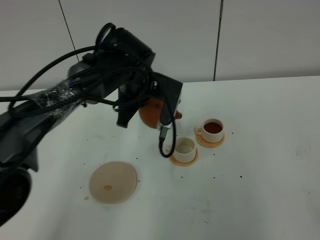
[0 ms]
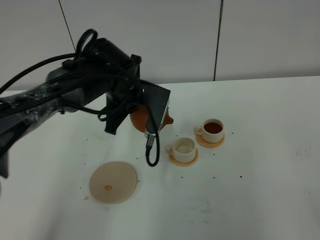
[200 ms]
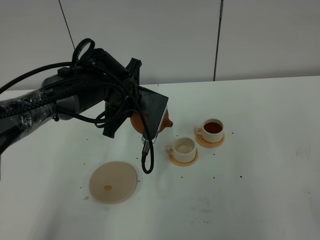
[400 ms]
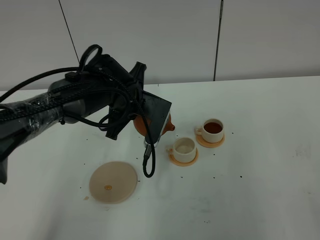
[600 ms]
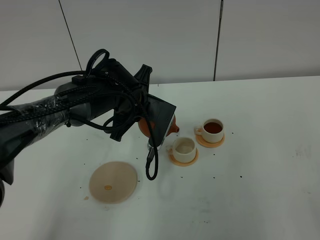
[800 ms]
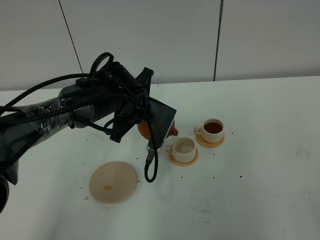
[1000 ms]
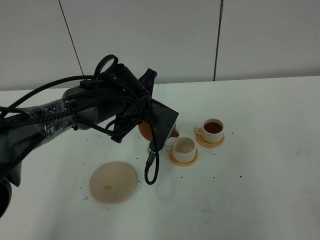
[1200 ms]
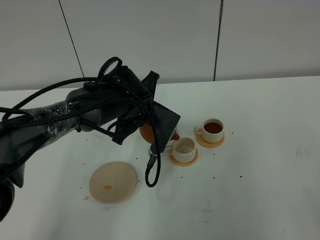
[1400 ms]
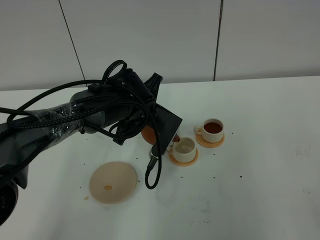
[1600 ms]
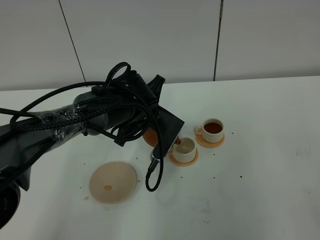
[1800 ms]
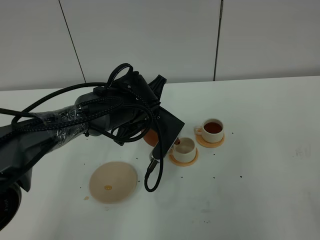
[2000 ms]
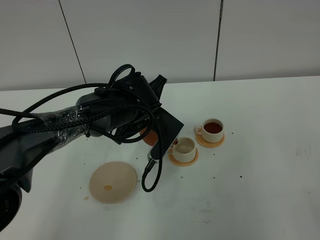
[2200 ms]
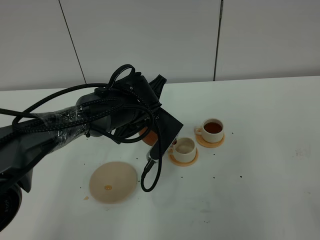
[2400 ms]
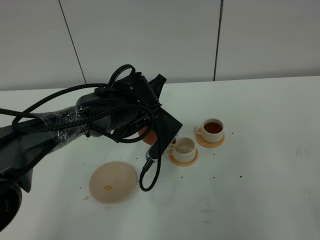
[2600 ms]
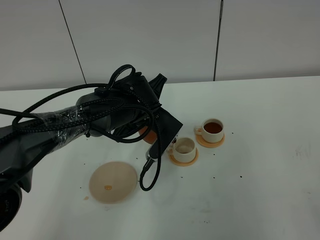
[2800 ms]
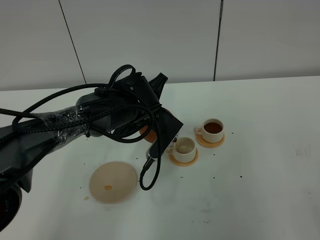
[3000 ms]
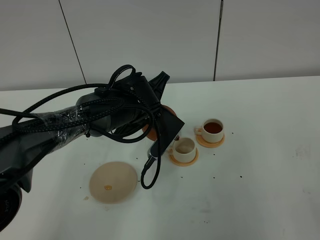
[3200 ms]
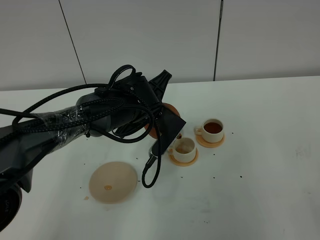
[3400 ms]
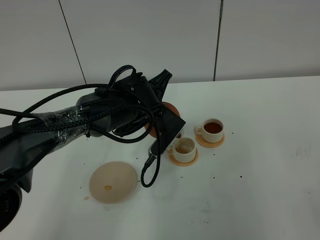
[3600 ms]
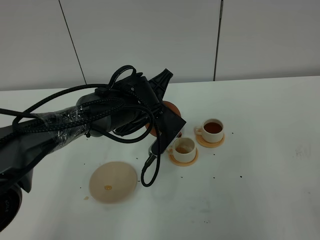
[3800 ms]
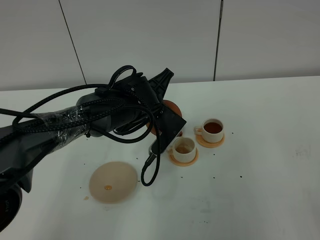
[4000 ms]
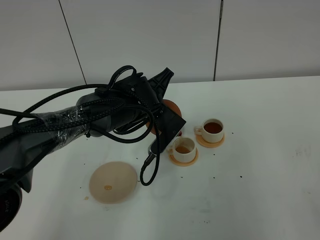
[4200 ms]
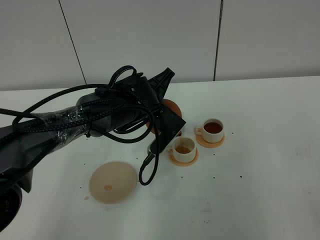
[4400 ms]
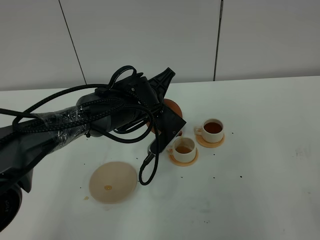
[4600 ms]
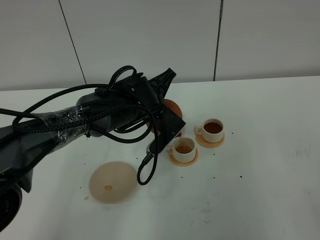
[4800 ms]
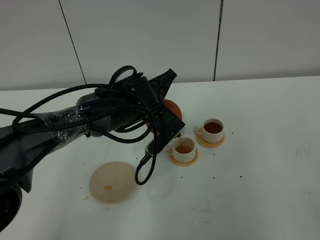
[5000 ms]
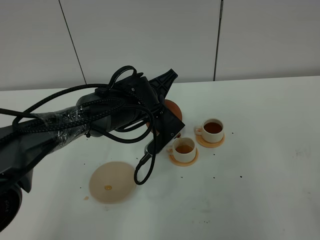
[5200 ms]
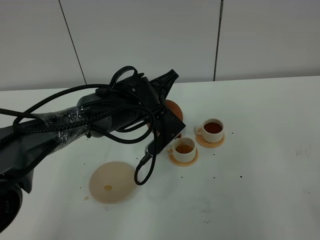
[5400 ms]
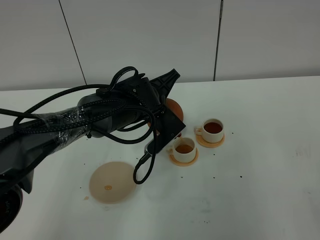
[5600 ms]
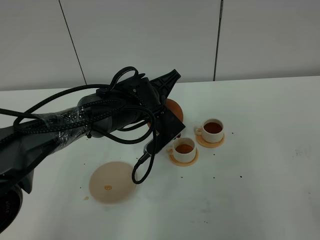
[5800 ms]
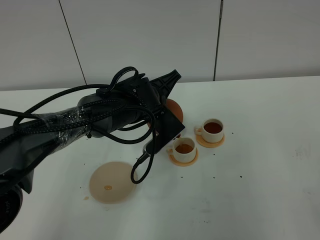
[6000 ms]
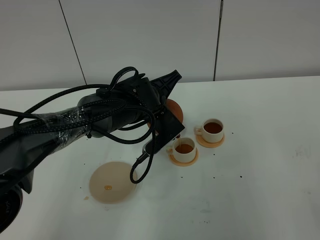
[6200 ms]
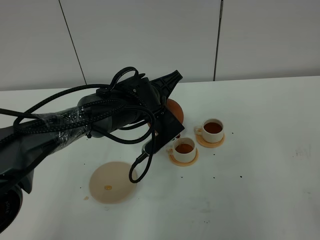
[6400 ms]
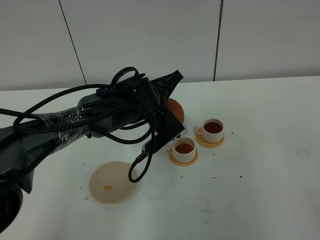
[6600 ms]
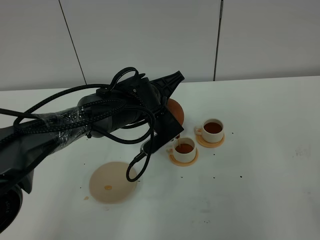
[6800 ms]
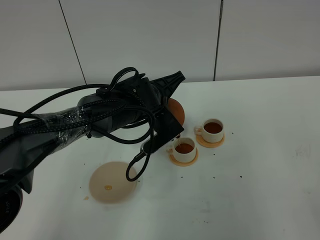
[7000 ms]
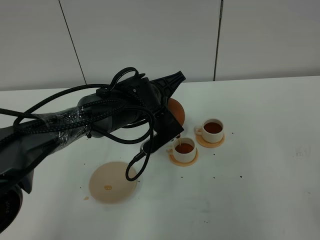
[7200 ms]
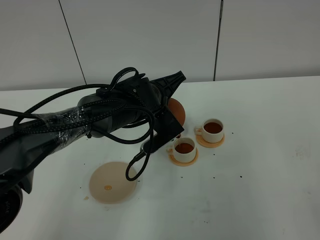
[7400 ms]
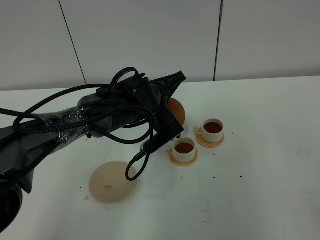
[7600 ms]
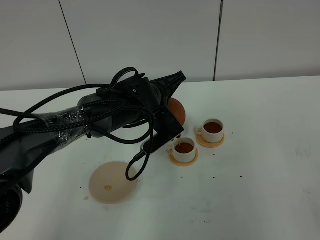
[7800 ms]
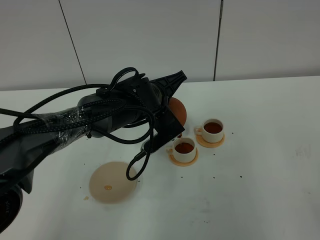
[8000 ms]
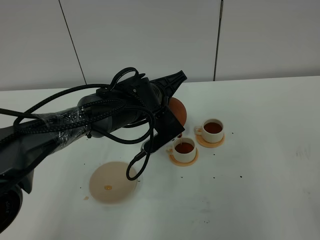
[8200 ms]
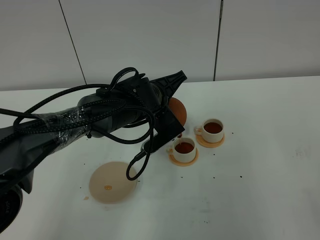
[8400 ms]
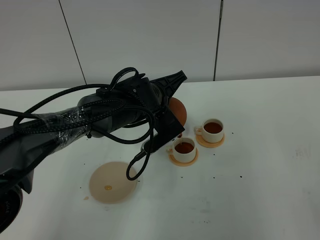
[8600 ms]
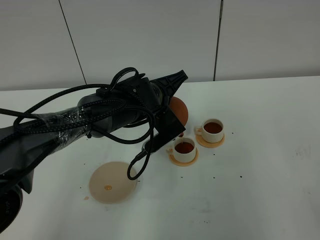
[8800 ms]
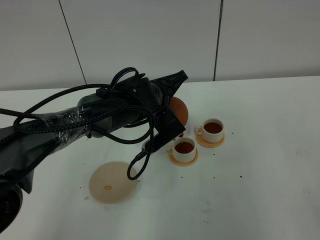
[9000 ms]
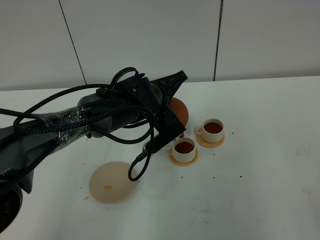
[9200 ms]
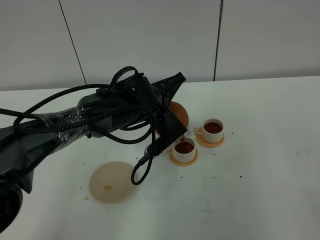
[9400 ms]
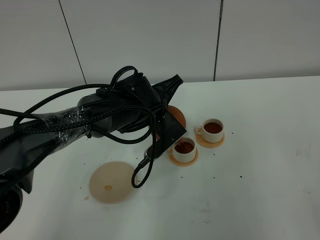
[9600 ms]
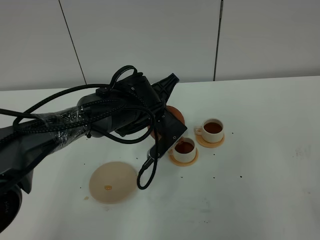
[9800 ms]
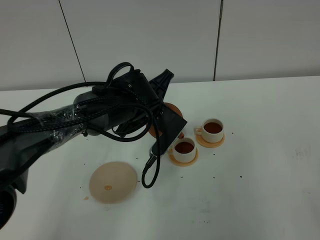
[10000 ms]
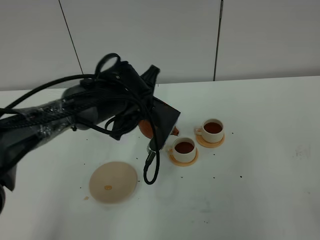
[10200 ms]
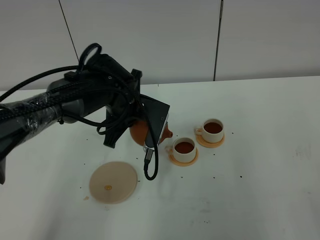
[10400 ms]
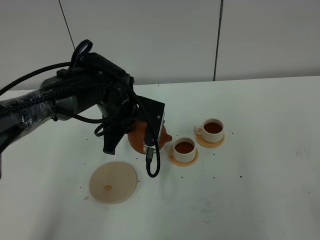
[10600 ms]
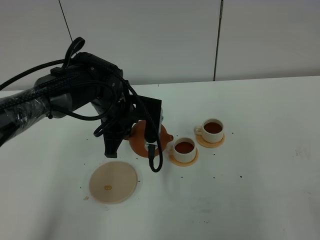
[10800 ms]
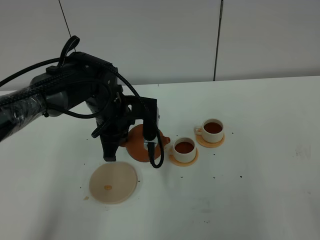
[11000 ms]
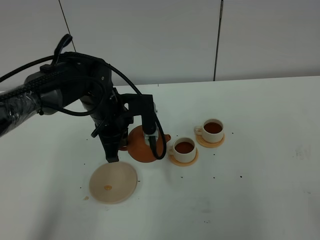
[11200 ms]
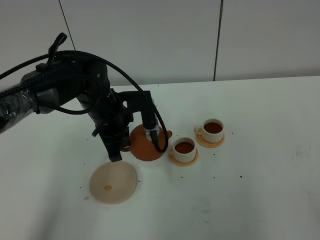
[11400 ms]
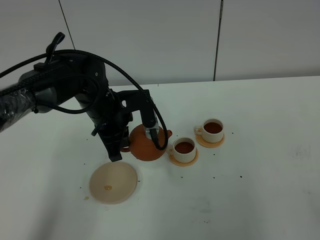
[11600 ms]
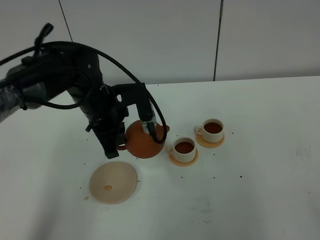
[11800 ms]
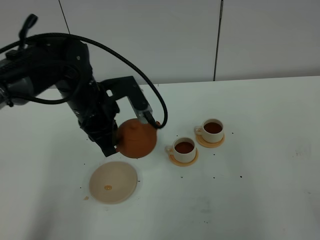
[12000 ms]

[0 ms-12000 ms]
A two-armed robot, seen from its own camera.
Task of the whole recording: grasp the brown teapot and pour the tea into the two white teacups one by one, put the brown teapot back in its original place.
Step, 0 ms to 10000 ms: Pour tea into the teacup with the left gripper.
0 ms to 1600 ms: The left gripper changes place by some 5 cm.
1600 ms to 4400 ms: The grippers make only small movements.
4400 ms to 7600 ms: The grippers stay close to where they were, moving slightly.
7600 ms to 9000 ms: The two grippers keep their place.
9000 ms to 10400 ms: The left gripper travels to the left by roughly 5 cm.
10400 ms to 12000 ms: The left gripper is displaced to the left by some 5 cm.

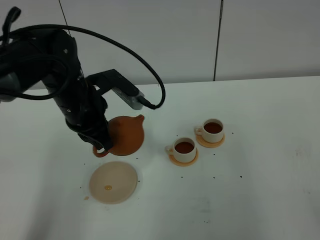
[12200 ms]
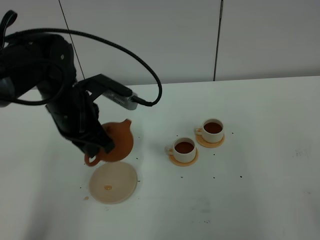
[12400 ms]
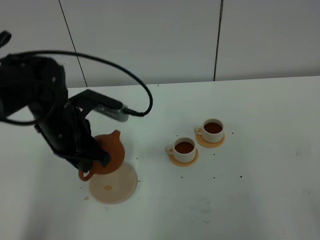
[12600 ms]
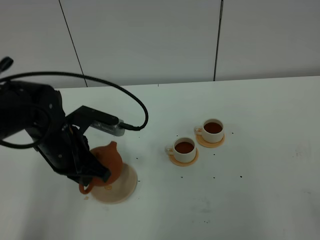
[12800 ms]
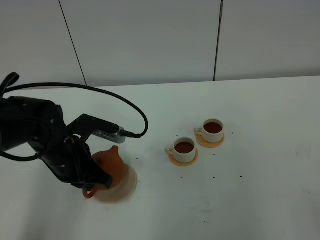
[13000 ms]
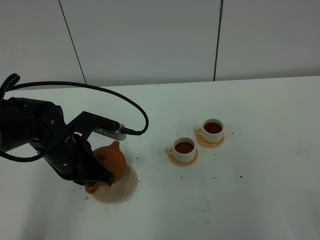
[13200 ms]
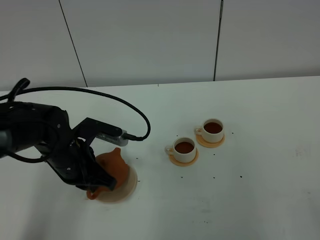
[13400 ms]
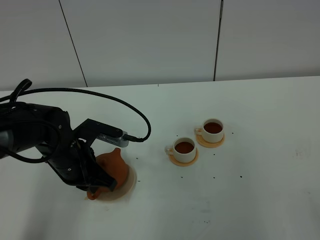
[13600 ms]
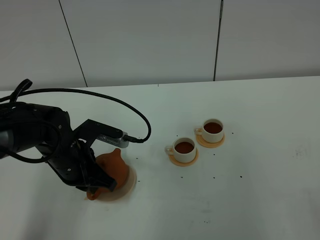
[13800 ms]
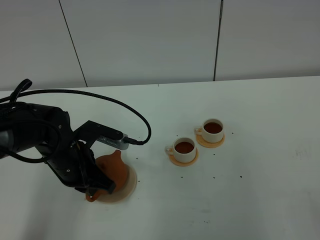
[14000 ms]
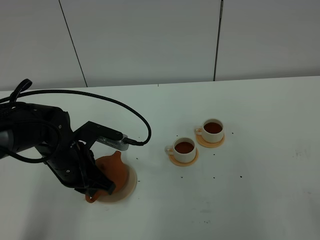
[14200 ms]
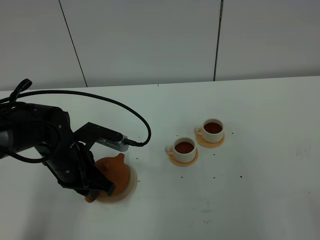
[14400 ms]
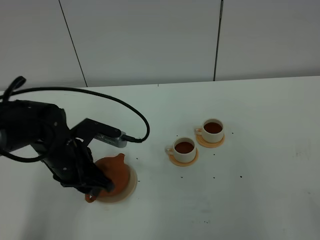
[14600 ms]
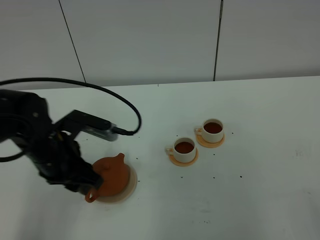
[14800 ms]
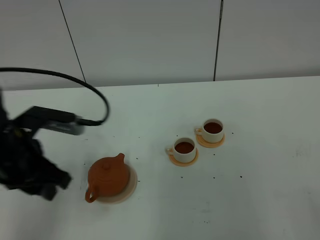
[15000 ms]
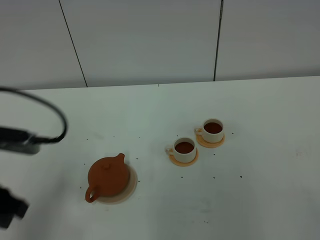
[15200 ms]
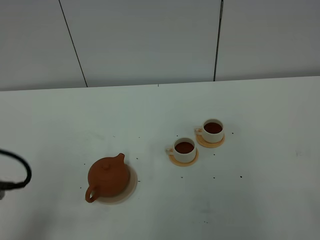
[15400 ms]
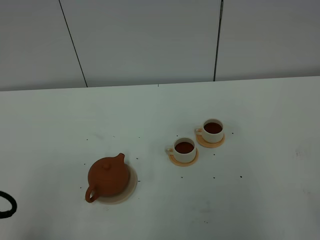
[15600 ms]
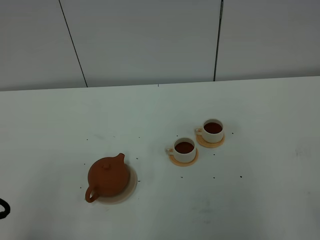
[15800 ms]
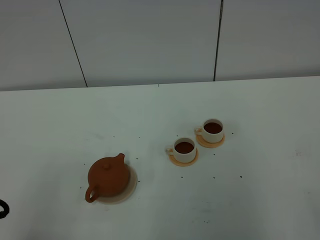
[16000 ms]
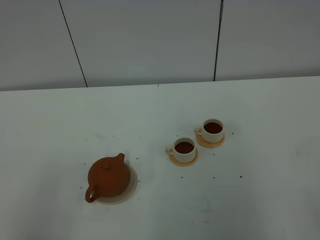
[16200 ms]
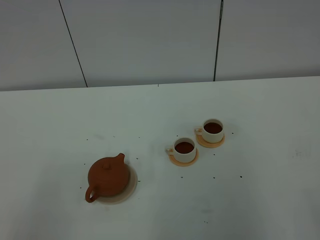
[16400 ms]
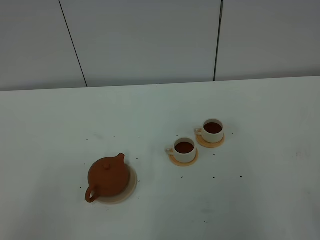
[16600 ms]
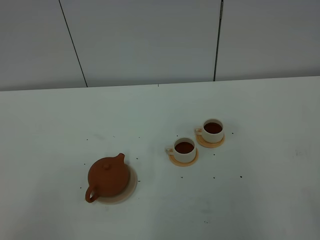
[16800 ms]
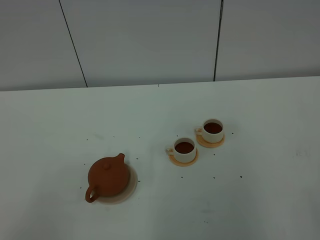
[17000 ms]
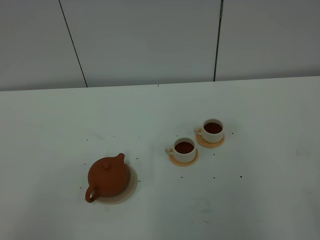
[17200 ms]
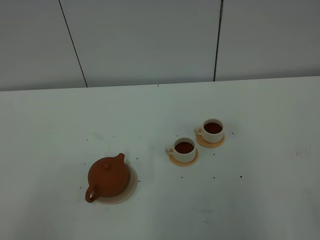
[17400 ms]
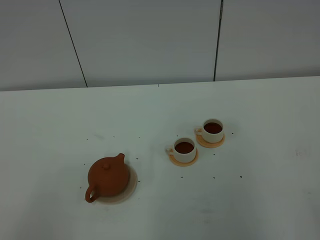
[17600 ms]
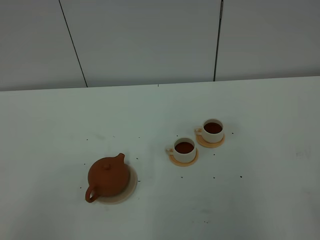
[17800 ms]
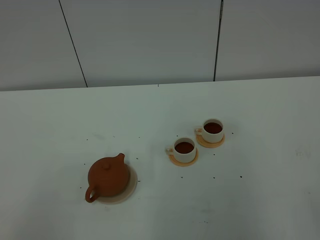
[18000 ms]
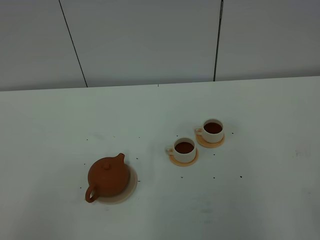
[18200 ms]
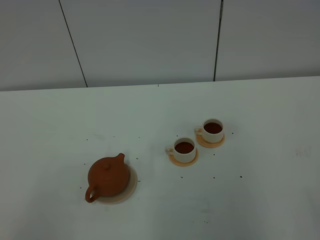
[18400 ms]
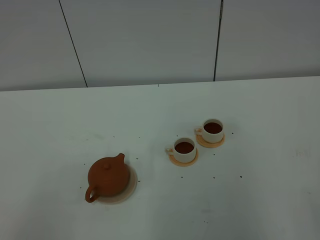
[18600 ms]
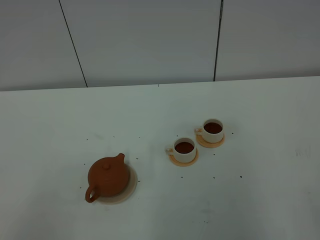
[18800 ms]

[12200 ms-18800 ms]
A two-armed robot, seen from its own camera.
Task of the whole recording: grasp the brown teapot and pour the tea into the two white teacups one by one, put the brown teapot back in its original place.
12200 ms to 13800 ms: The left gripper is displaced downward and backward by approximately 10 cm.
13800 ms to 15400 ms: The left gripper travels backward, to the left and upward by approximately 25 cm, and opens its fingers.
15400 ms to 17200 ms: The left gripper is displaced backward by some 15 cm.
17200 ms to 18800 ms: Both grippers stay about where they are.

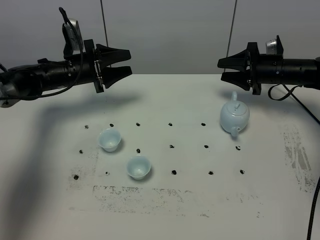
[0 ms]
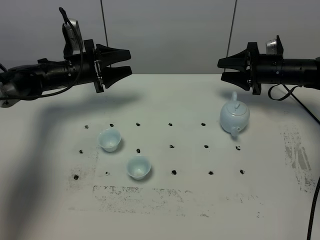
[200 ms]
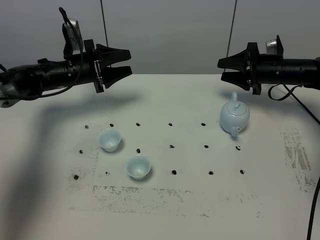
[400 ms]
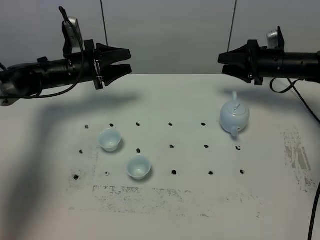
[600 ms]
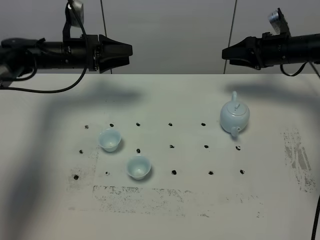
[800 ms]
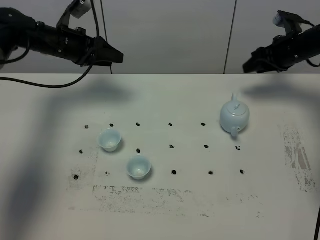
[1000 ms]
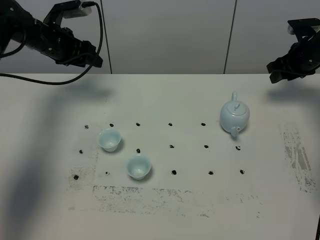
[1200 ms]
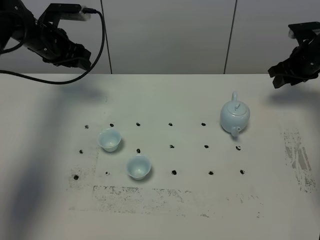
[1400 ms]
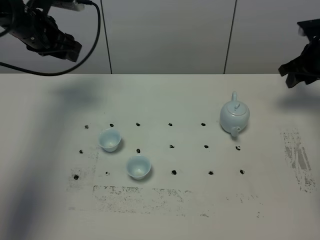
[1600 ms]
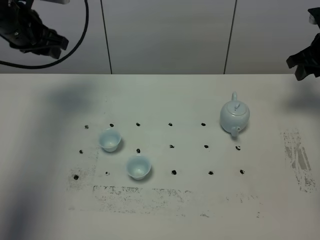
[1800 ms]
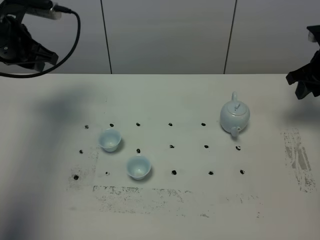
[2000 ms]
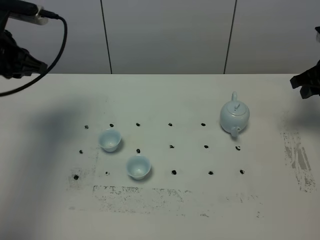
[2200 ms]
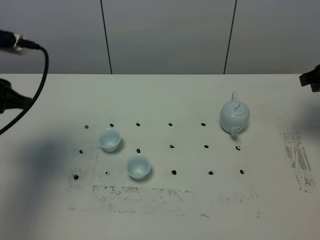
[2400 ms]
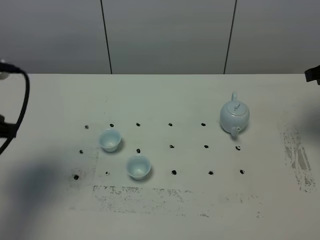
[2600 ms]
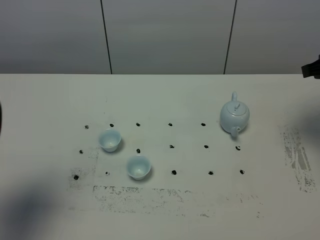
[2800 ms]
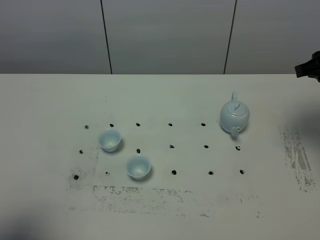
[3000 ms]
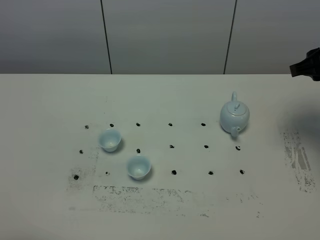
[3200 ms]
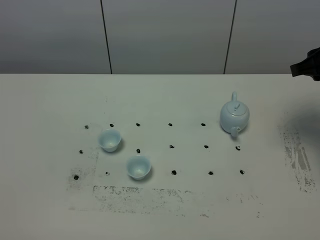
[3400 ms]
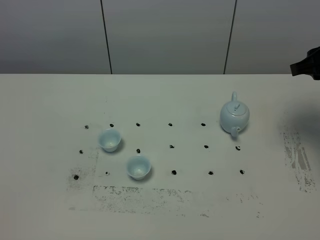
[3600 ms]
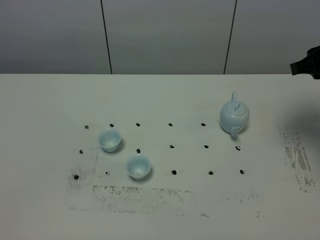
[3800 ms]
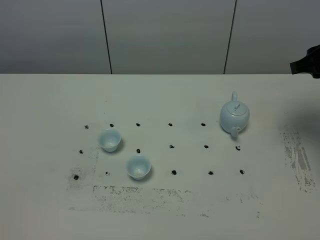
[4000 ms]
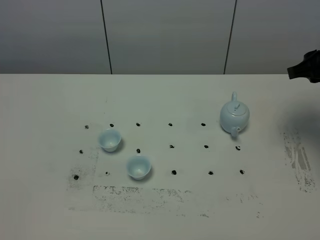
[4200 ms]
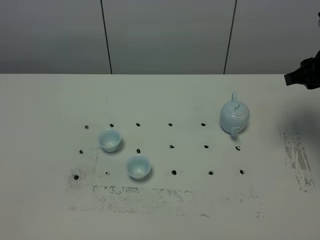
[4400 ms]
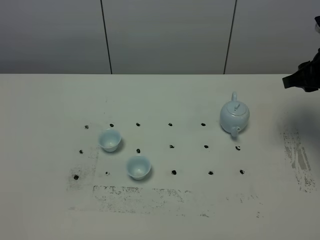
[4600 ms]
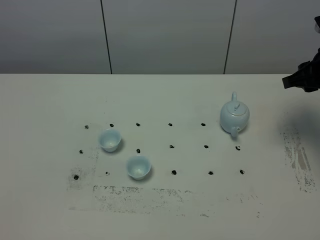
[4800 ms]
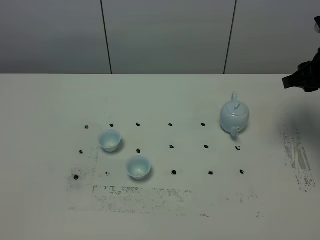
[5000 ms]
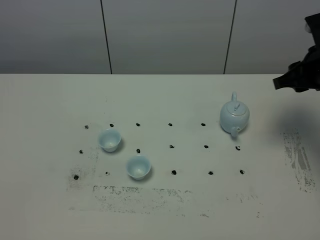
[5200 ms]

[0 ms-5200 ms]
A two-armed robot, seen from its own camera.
Task of the whole recording: grasp the blue porcelain teapot and pour the tea into the two blue porcelain teacups one by one, put the blue porcelain teapot back in its original place.
0 ms to 1800 ms: The right gripper shifts approximately 15 cm upward and to the right. Meanwhile the left gripper shifts some 15 cm upward, and closes its fingers.
1800 ms to 3400 ms: The right gripper heads backward and upward, covering some 15 cm; the left gripper heads backward, covering approximately 50 cm, and closes and opens again.
3400 ms to 5200 ms: The grippers move only a little.
